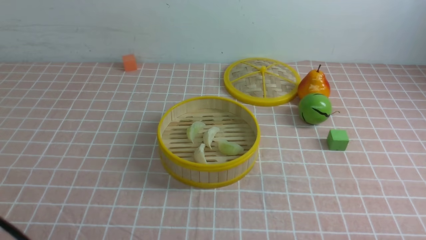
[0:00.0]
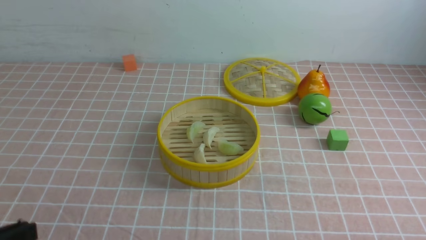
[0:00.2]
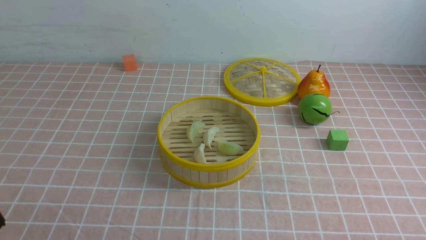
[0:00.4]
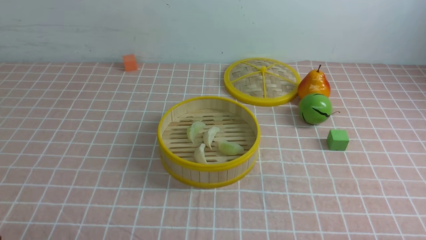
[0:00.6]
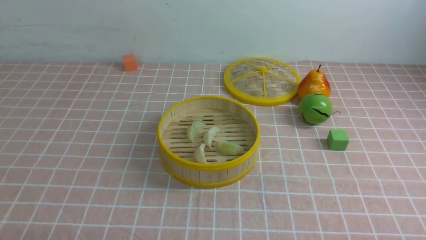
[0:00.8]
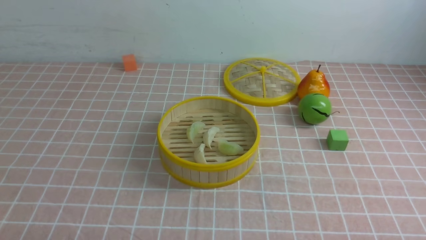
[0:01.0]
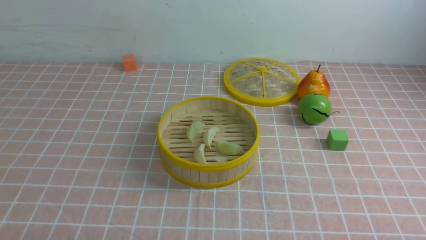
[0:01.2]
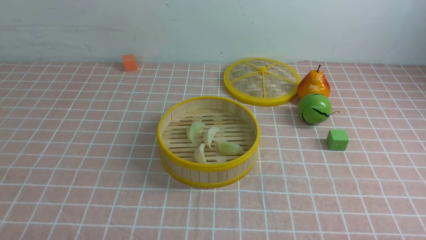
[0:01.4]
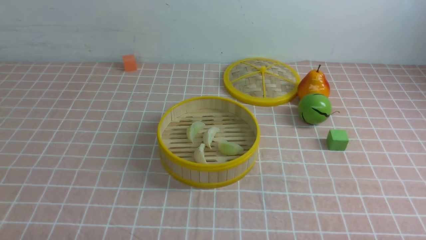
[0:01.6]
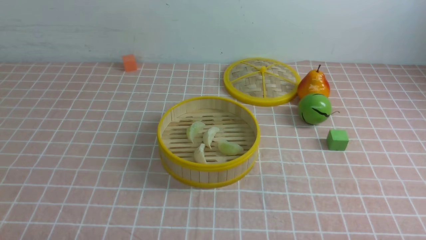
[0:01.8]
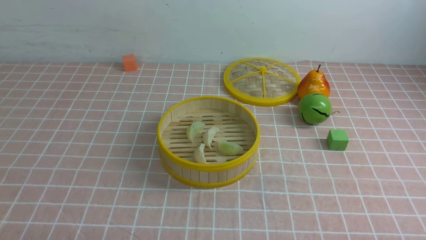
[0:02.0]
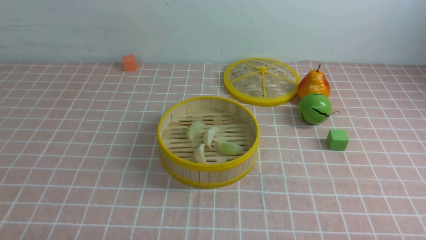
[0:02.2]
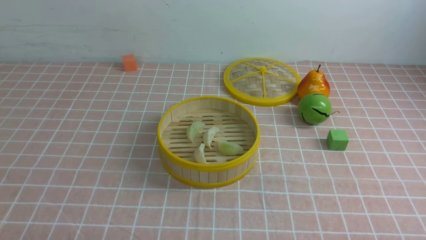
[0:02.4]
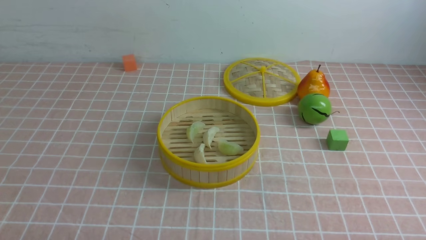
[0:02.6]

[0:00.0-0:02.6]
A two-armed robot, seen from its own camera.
Task of the whole recording: put the dumplings into the steamer on the table with the pink tablecloth.
0:01.2 to 0:02.6: The two grippers keep their place.

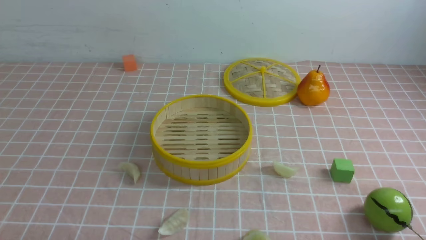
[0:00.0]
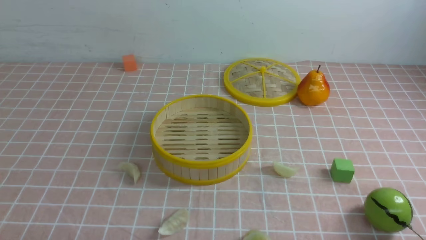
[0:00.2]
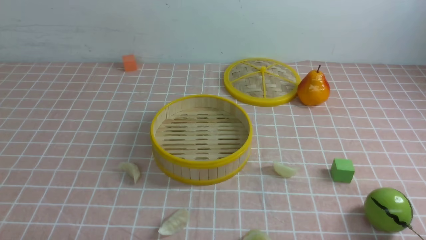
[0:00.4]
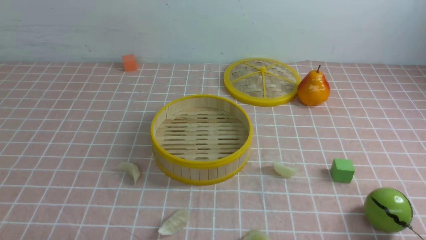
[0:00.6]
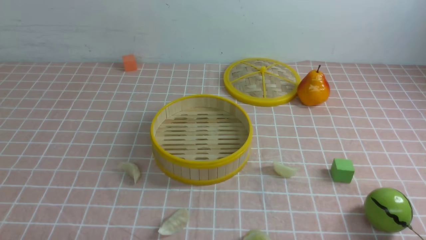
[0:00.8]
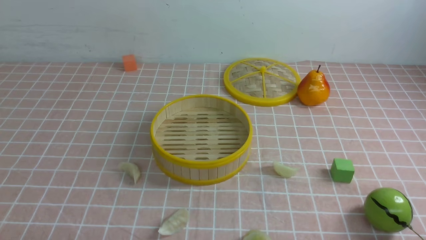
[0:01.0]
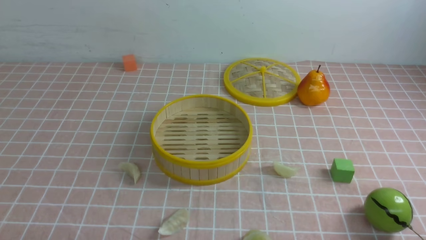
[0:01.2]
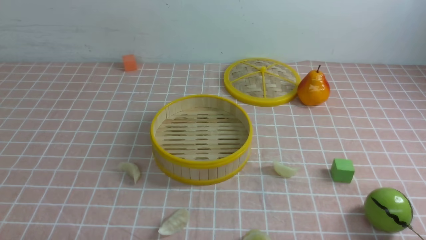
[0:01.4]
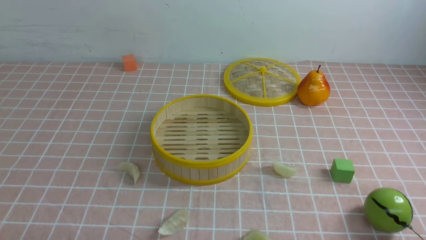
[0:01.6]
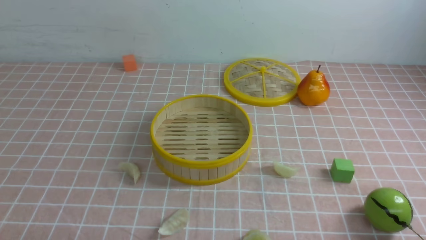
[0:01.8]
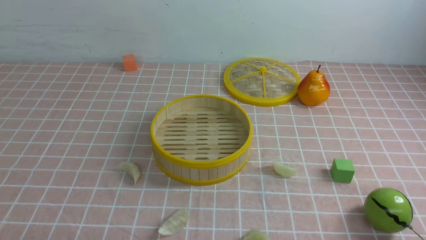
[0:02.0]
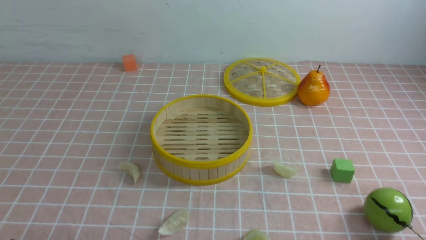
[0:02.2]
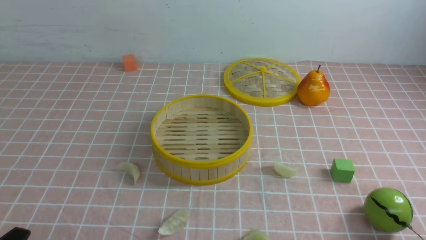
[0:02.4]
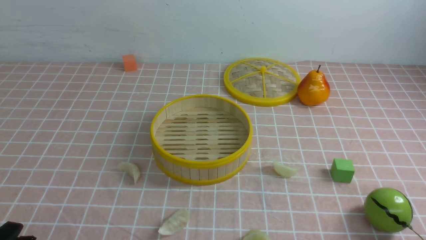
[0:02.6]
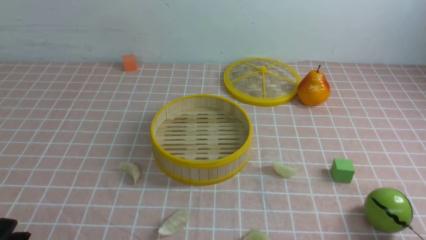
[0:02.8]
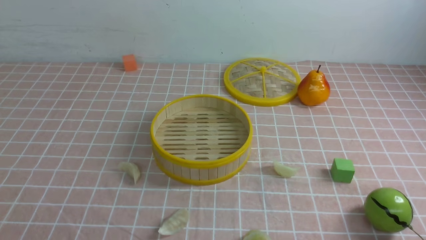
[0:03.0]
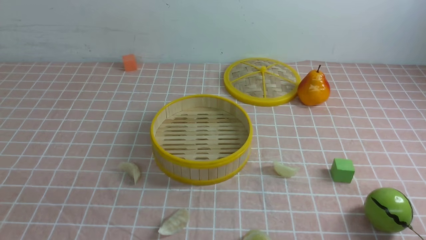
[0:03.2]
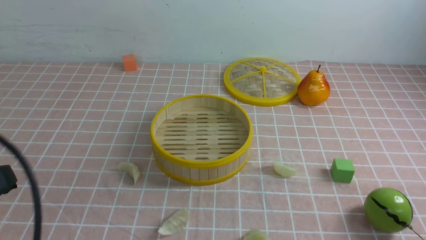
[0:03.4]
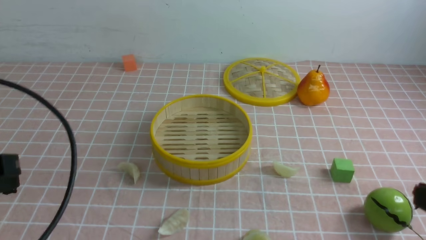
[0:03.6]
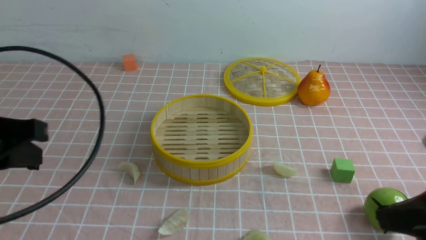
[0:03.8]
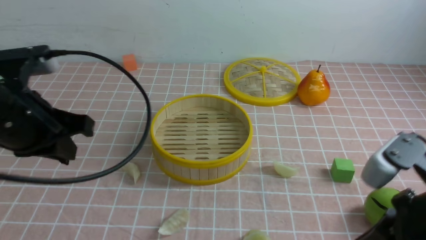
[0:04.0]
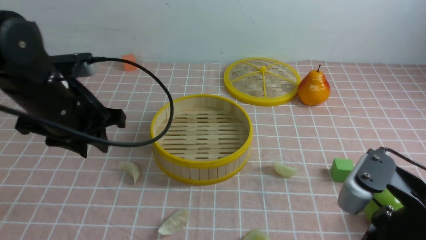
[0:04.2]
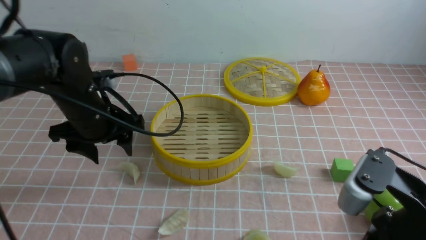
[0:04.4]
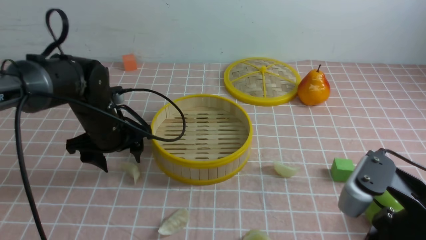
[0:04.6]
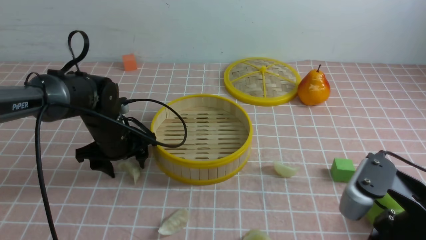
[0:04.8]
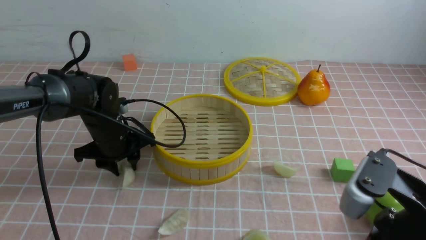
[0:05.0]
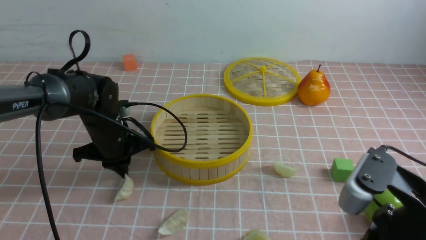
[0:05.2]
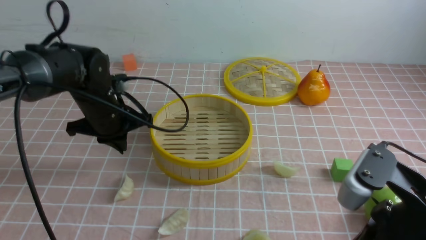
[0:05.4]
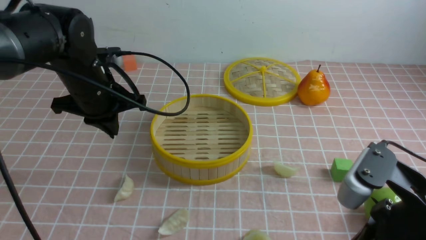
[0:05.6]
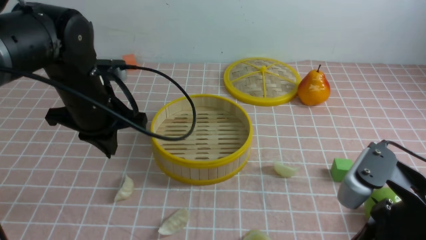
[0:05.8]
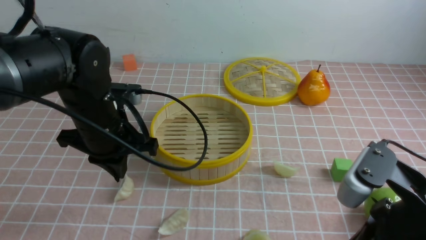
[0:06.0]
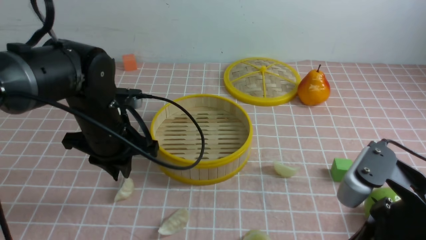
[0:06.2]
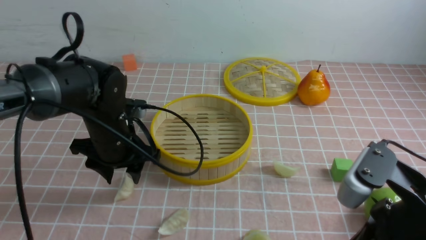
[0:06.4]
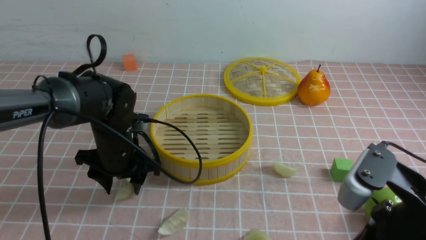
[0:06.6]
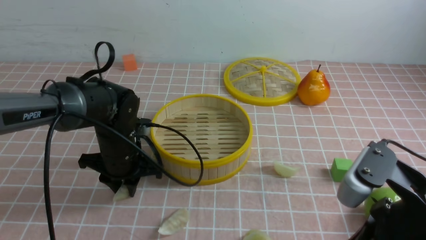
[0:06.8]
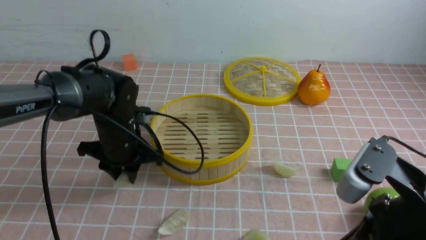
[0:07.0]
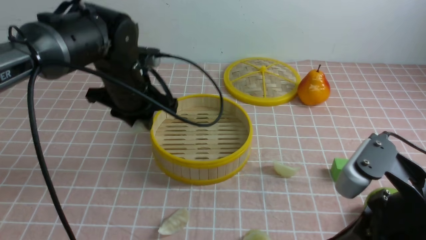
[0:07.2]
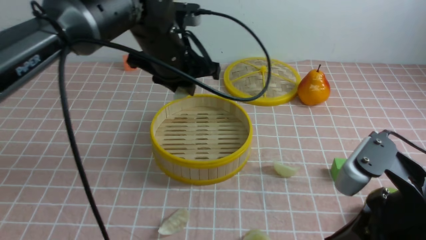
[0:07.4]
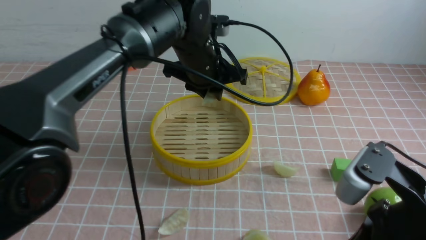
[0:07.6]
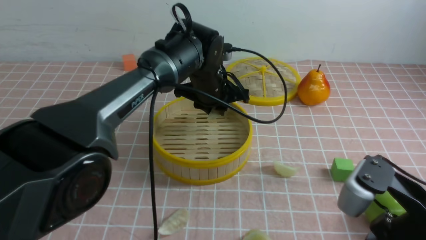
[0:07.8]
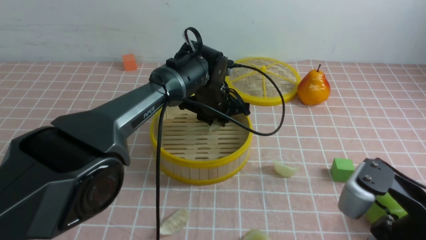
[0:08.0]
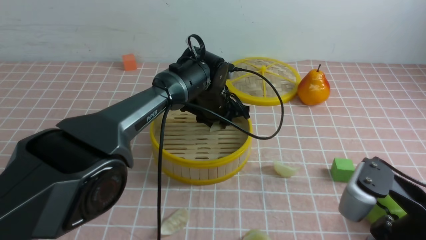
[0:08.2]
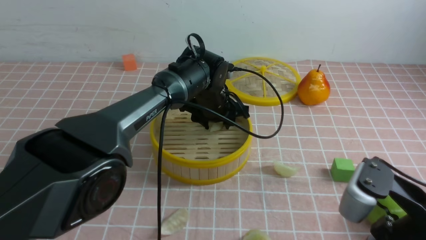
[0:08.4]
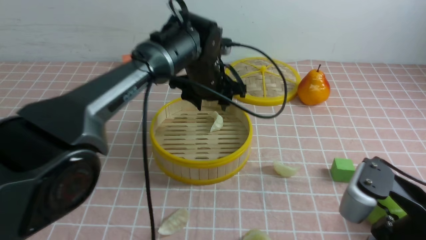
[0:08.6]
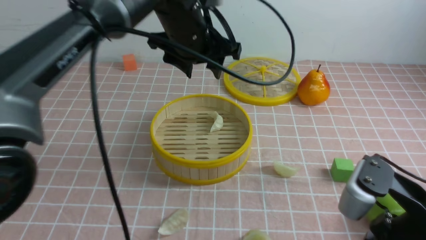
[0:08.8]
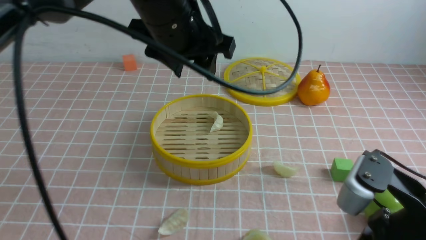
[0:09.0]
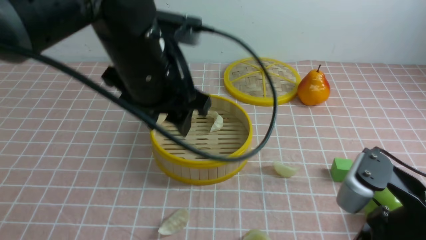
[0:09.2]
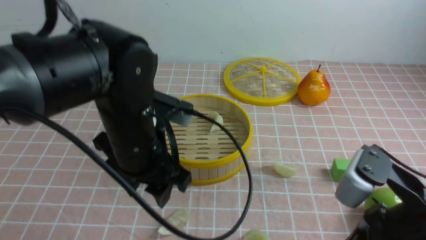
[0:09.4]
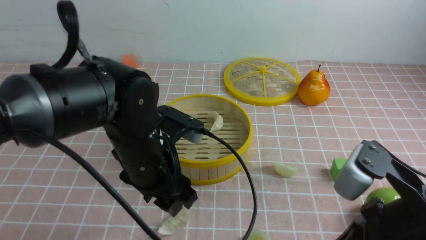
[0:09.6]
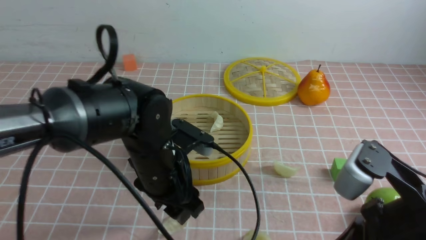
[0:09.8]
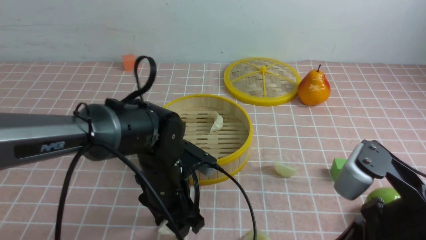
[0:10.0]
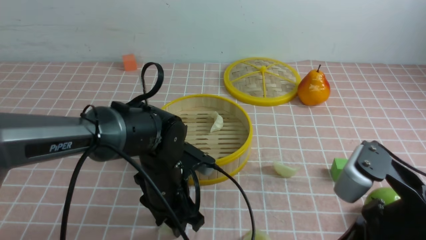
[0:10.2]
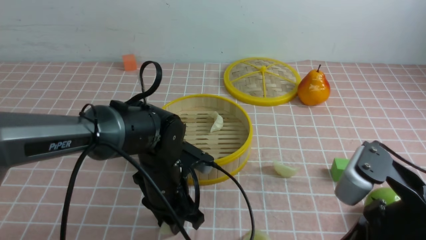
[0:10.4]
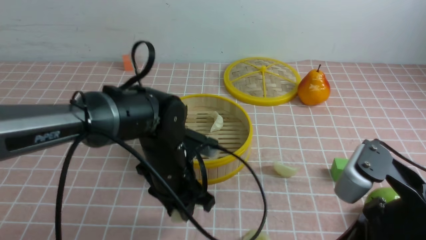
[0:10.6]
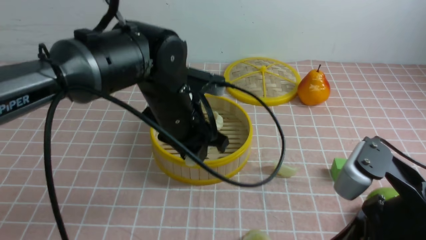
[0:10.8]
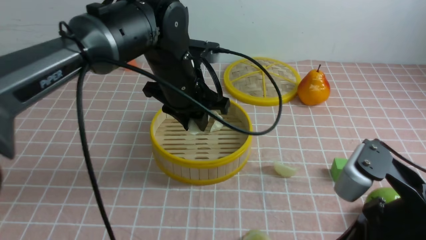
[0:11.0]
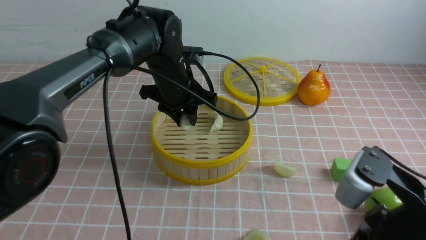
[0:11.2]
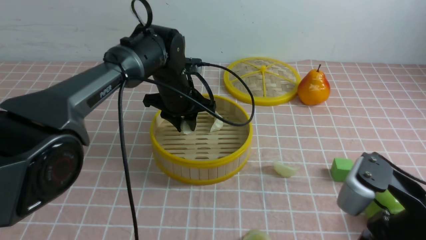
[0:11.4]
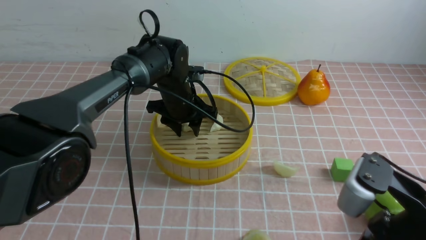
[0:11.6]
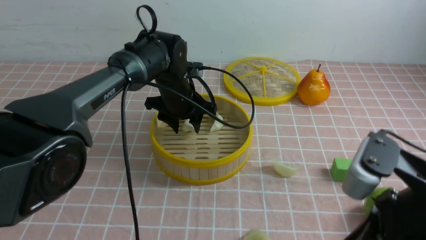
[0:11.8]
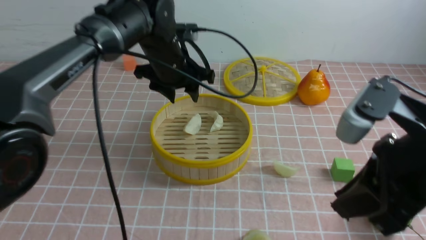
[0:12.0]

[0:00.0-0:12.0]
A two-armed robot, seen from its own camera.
Task of the whole recording: put the dumplings into the steamer on the table with the pink tablecloth.
Step, 0:00.0 to 0:07.0: use the left arm to grab a dumpling.
Step, 0:07.2 to 0:08.4: use the left arm to put the dumpling into the steamer.
Step, 0:08.6 to 0:10.4: use the left arm to grab a dumpling.
Step, 0:10.6 to 0:11.6: use the left arm to put the dumpling into the steamer.
0:00.0 to 0:01.6: Both grippers stay about where they are.
0:03.0 to 0:04.4: The right gripper goes about 15 cm forward, to the left and upward, and closes its fingers, while the left gripper travels forward by approximately 30 cm, and opens its fingers.
0:04.4 to 0:06.0: The left gripper goes downward and returns, roughly 10 cm each way, and closes its fingers.
0:06.0 to 0:07.6: The left gripper heads to the right and forward, covering about 15 cm, moves about 10 cm downward and comes back, and opens, then closes once more.
0:07.6 to 0:09.0: The left gripper heads backward and upward, covering some 15 cm, and opens up.
0:09.0 to 0:10.4: The left gripper moves downward, some 20 cm, and closes.
0:10.4 to 0:12.0: The left gripper heads upward and forward, covering about 20 cm, while the right gripper shifts by roughly 5 cm.

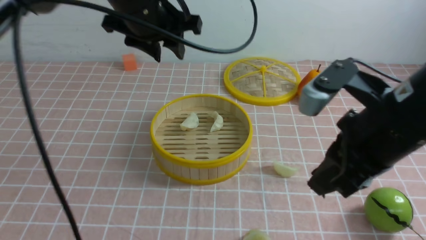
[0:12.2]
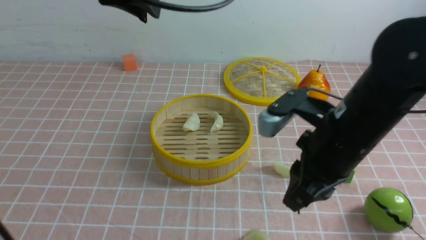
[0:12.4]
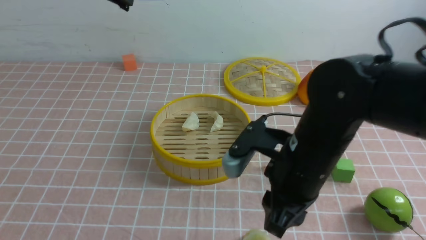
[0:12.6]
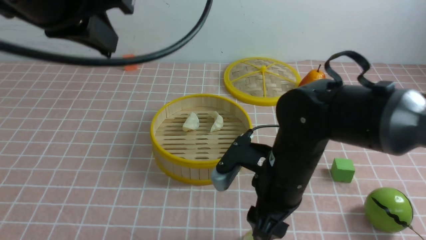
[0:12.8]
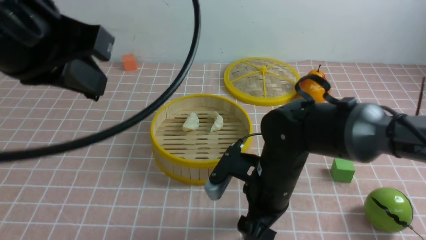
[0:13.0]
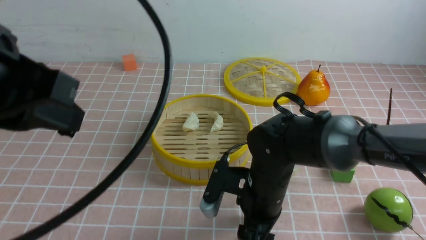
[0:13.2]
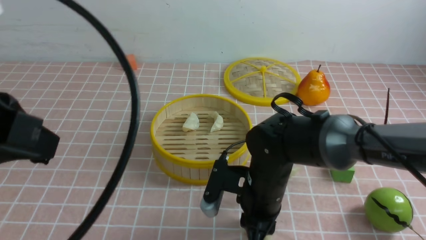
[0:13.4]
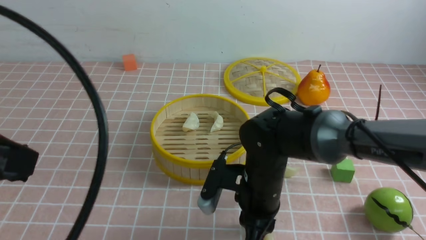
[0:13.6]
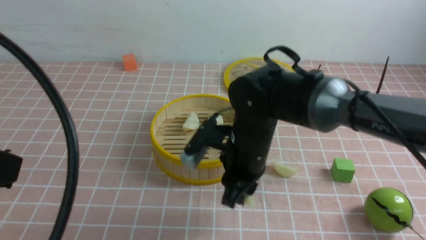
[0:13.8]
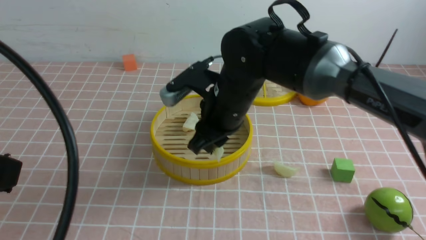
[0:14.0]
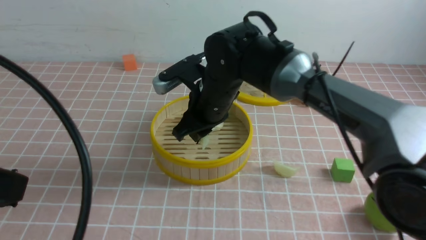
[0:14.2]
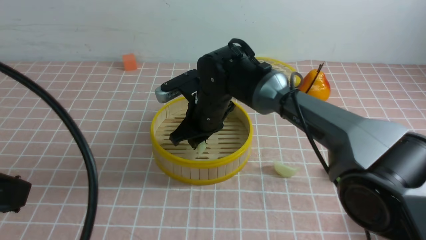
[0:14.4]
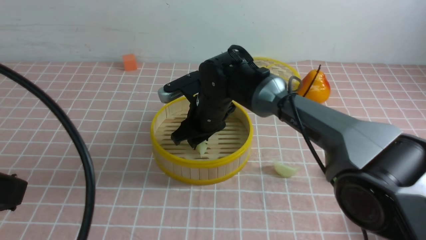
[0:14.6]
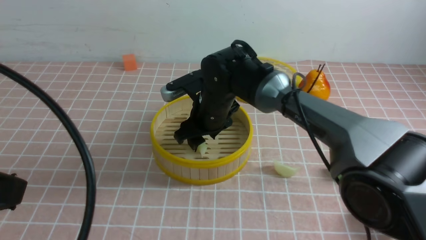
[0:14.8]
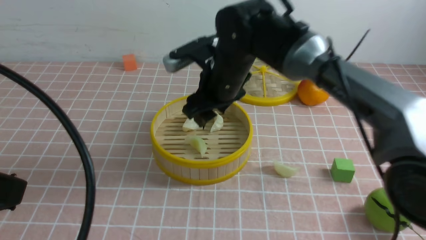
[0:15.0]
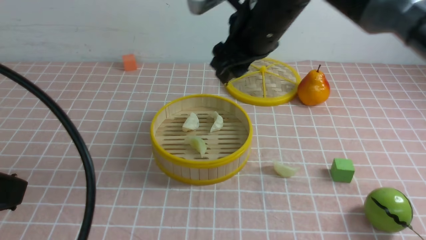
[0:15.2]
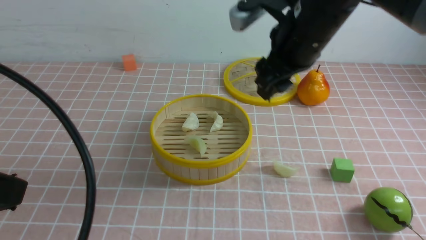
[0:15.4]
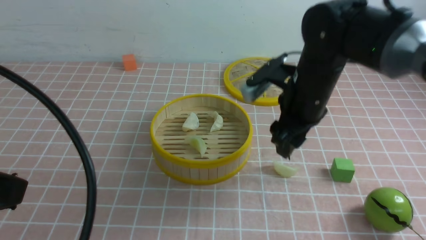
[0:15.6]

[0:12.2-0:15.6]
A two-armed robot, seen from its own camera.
Task of the whole recording: put the dumplings into the steamer on the table with the pink tablecloth.
Step, 0:12.2 to 0:13.4: use the right arm to grab a dumpling.
Step, 0:13.6 to 0:14.8: use the right arm to put the dumpling into the steamer.
0:12.2 to 0:13.8: The left gripper travels backward by approximately 30 cm, and closes, while the right gripper moves to the left, downward and forward, roughly 20 cm, and opens, then closes once more.
0:13.8 to 0:15.6: The right gripper travels to the right and forward by roughly 10 cm, reaches approximately 15 cm upward, then returns, and opens.
